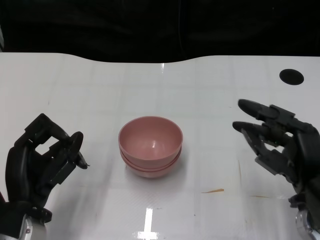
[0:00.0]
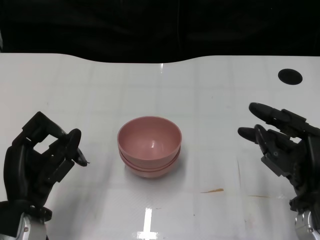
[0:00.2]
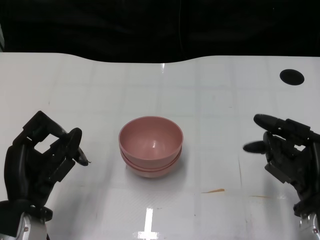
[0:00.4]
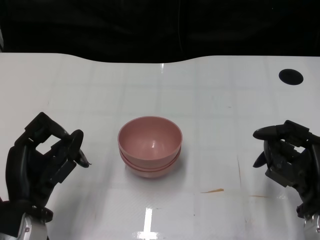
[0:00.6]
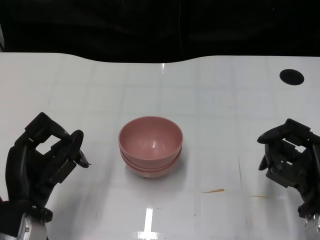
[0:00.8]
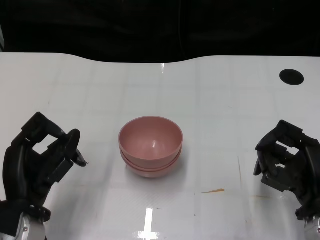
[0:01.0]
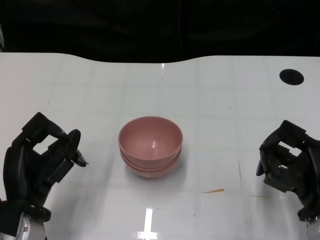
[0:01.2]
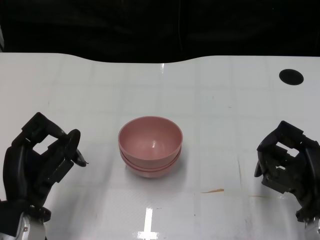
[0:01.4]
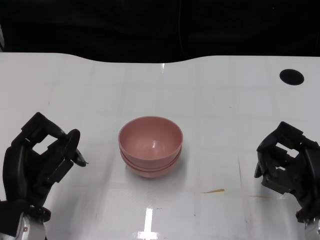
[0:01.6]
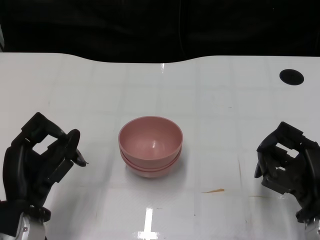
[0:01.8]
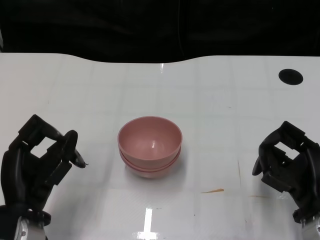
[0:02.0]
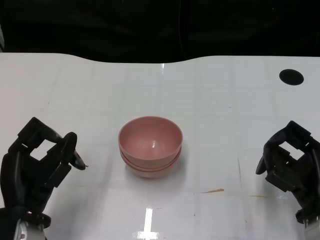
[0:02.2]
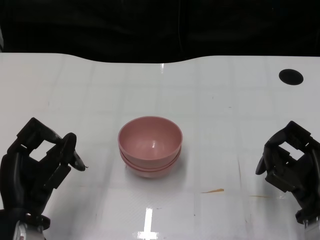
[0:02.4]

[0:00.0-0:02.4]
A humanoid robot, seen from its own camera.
Task of the whole recording: Pick up the bowl on one side of the table and place it on top of the middle bowl, then pick up the bowl on the other side of the table and place it on top of the middle bowls.
0:00.0 to 0:01.2: The hands stay close to where they were, moving slightly.
0:01.2 to 0:02.4: The hands move only a little.
